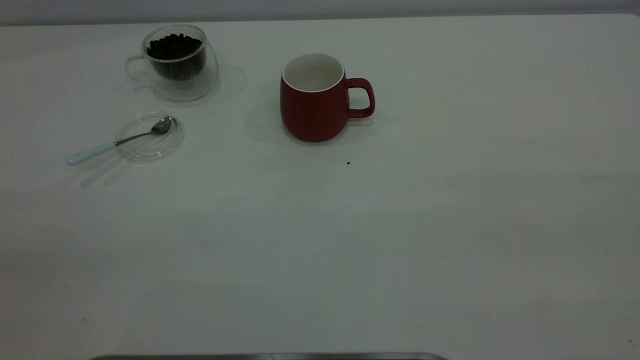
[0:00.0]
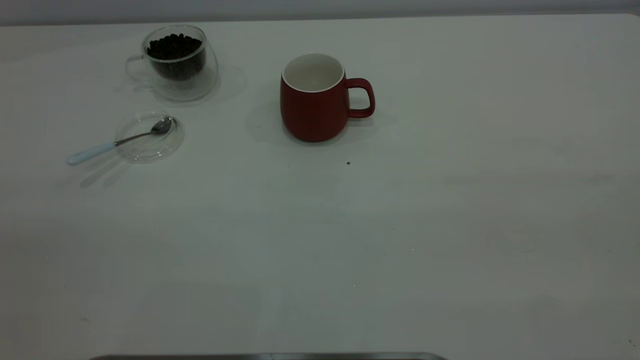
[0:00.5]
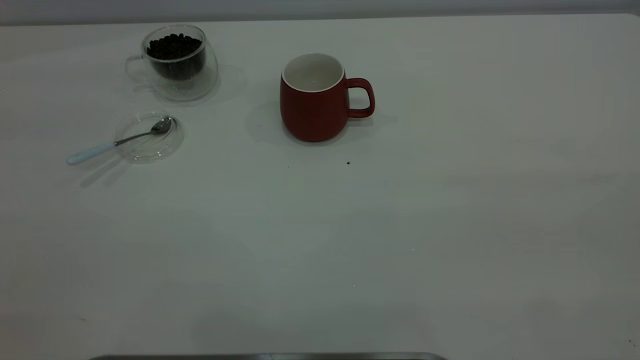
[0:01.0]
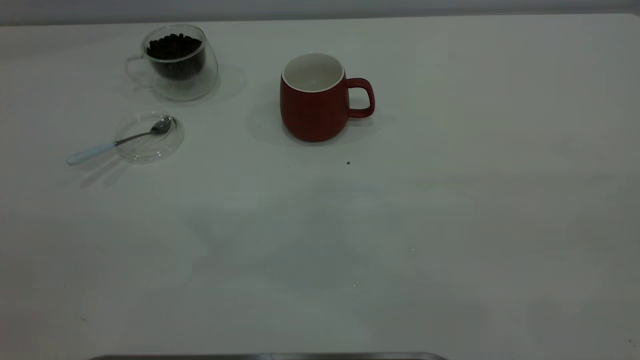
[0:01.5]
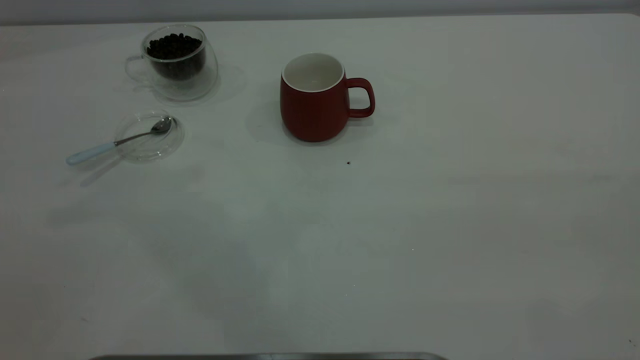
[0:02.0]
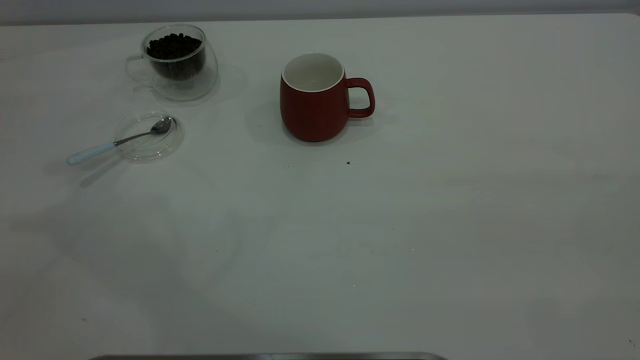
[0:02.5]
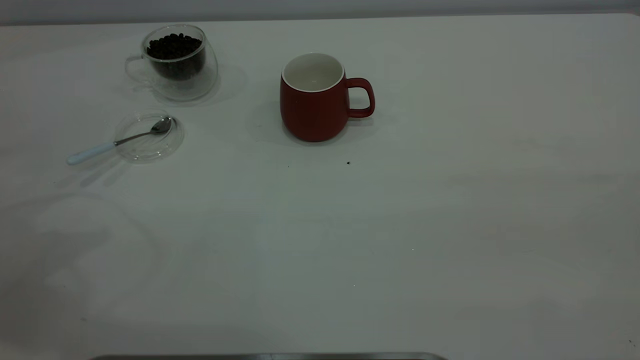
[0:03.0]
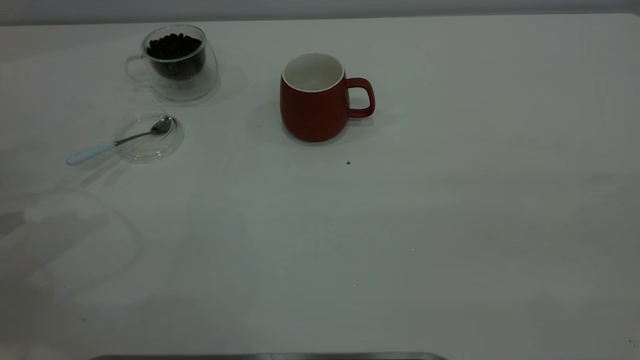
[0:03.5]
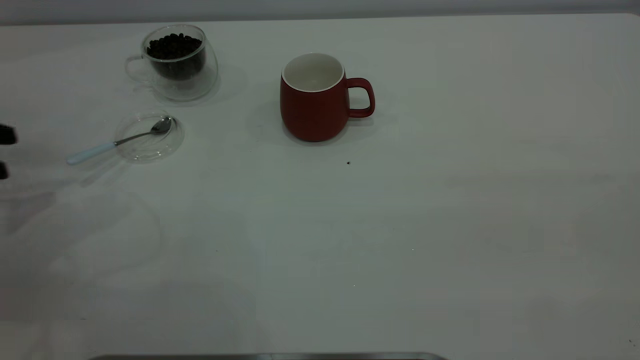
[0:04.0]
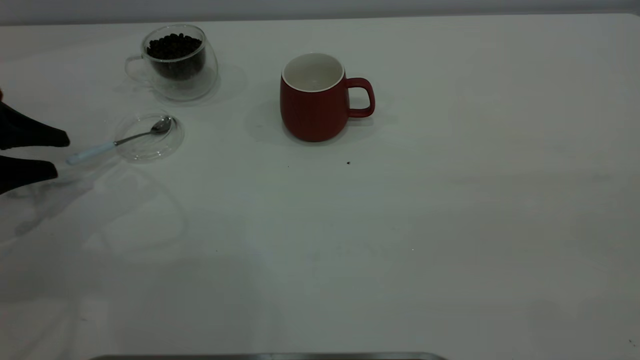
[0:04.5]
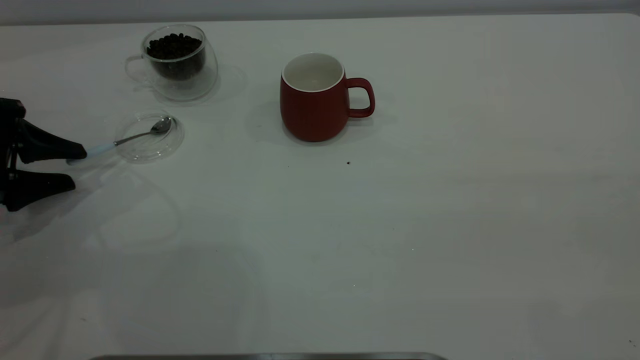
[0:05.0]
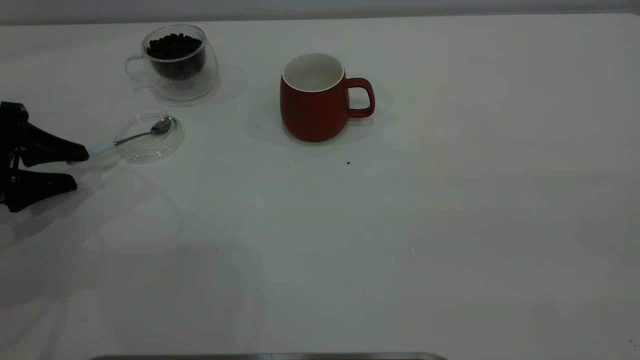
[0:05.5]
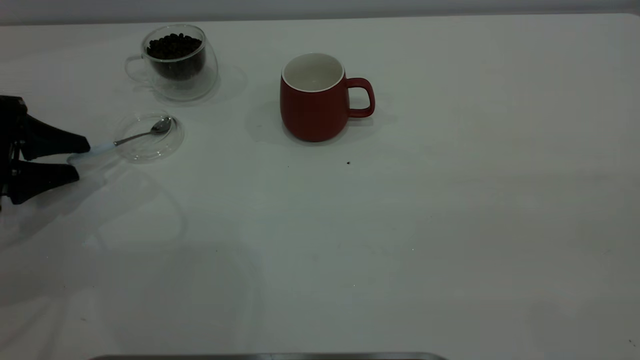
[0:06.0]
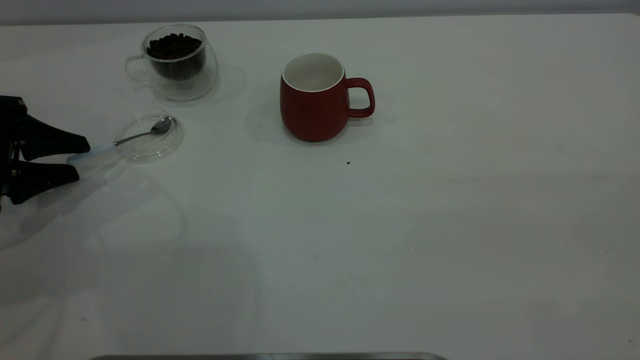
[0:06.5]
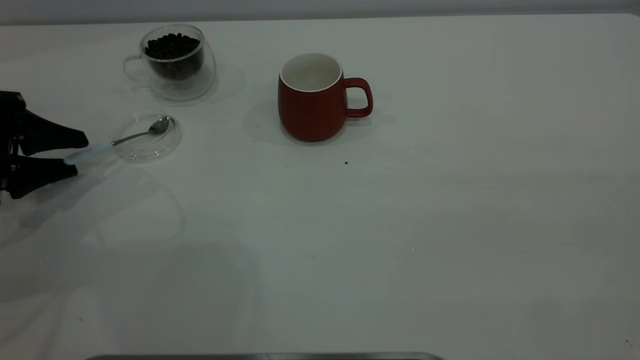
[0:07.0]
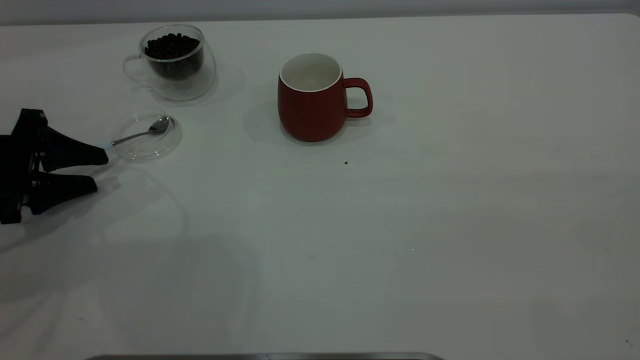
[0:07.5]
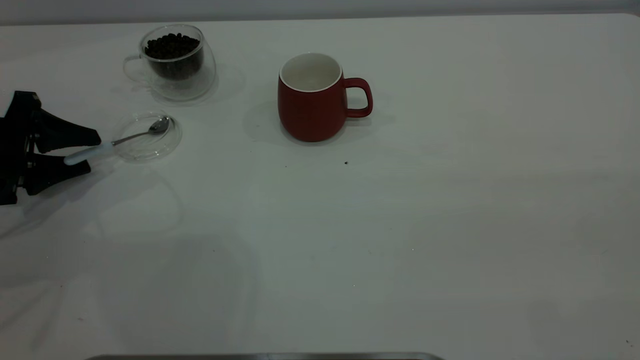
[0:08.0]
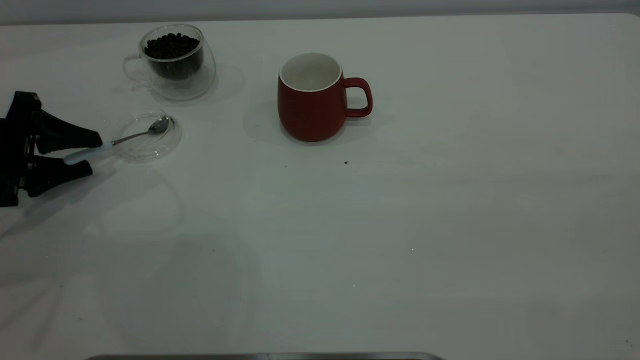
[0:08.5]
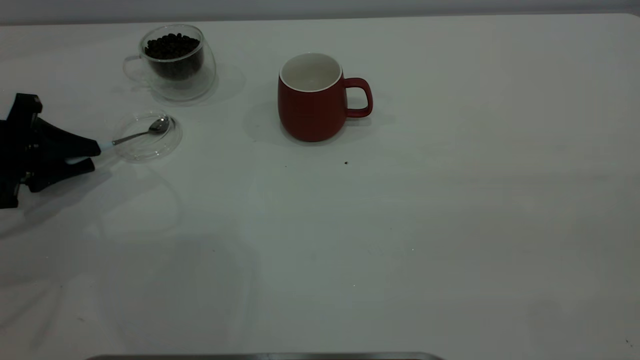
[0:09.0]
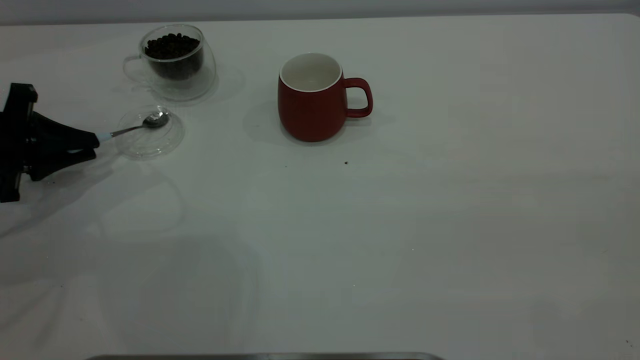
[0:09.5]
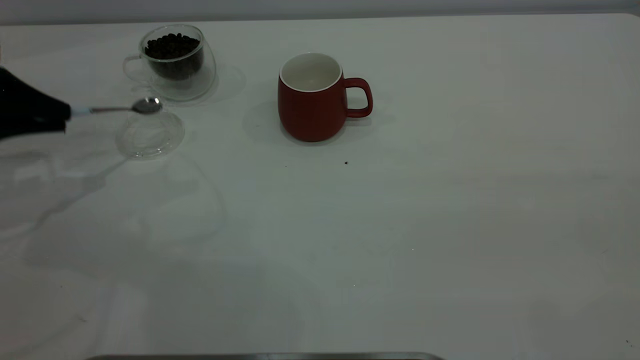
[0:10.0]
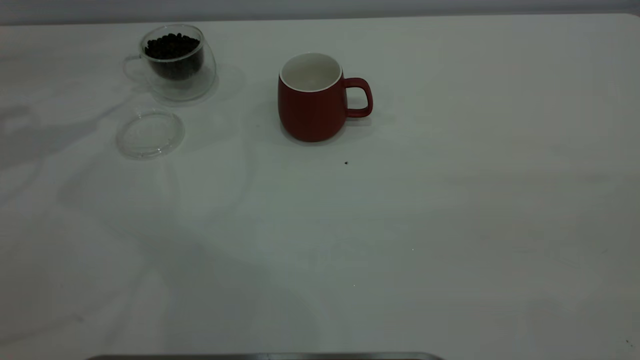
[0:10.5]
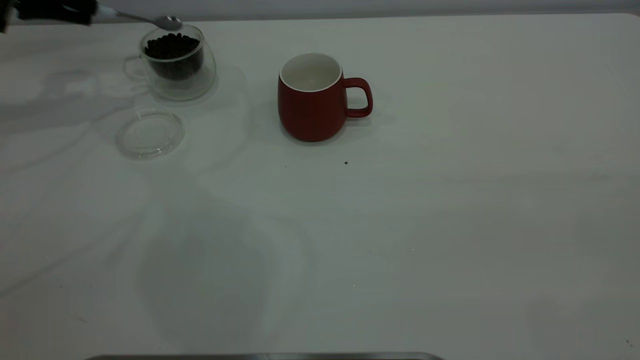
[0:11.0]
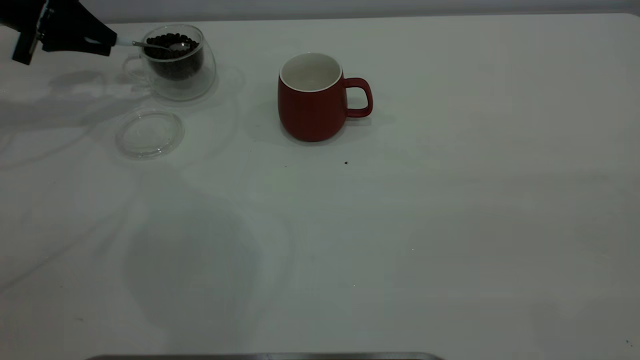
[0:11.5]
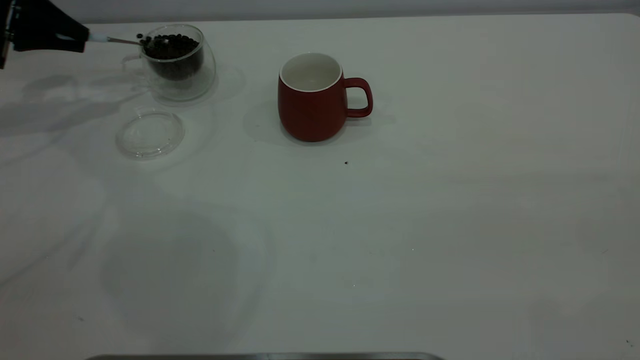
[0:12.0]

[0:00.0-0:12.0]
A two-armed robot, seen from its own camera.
Task of the whole recording: the right gripper place the red cup in the center of the table, the left gripper take the blue spoon from the cup lid and scoop out the coffee beans from the coffee cup and put them into the red cup, the left gripper put the spoon back into the cup lid.
Step, 0:00.0 to 0:09.5: Pick up the spoon.
0:04.0 to 0:06.0: The left gripper ends up some 5 cm from where it was.
0:06.0 to 0:08.0: The grippers stay close to where they were, moving slightly.
0:08.0 to 0:10.0: The left gripper heads upward, covering some 10 cm, and closes up.
0:10.0 to 0:12.0: The left gripper goes some 15 cm forward.

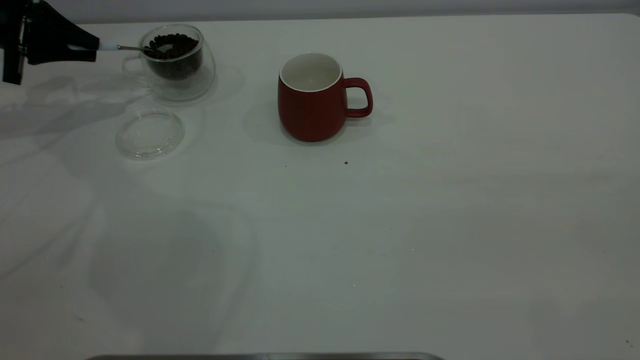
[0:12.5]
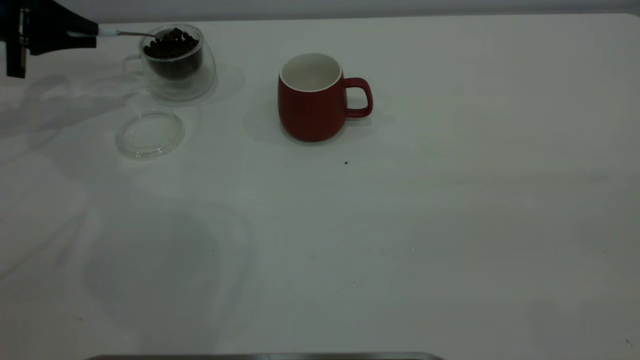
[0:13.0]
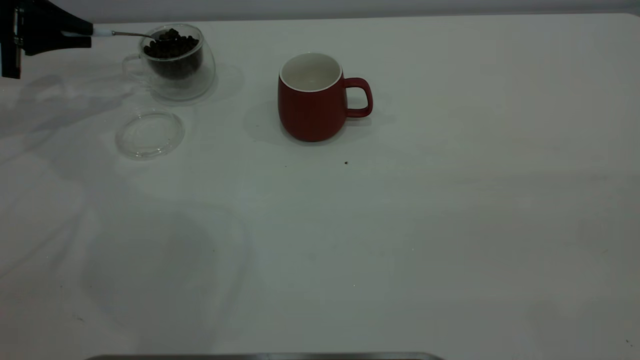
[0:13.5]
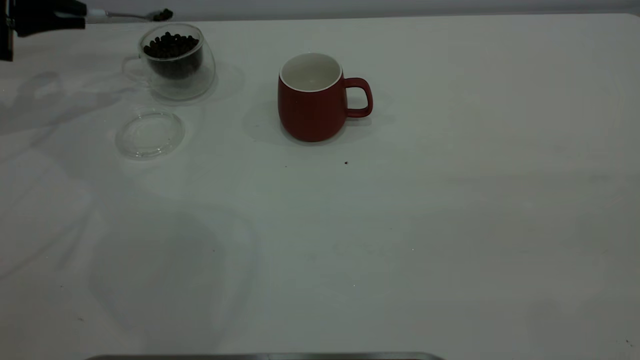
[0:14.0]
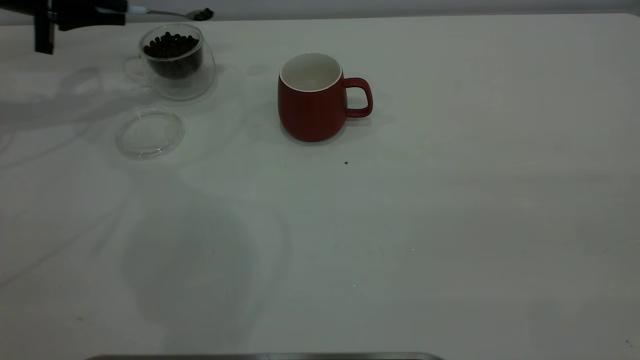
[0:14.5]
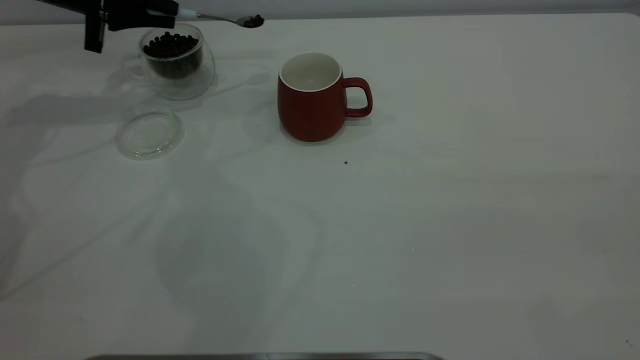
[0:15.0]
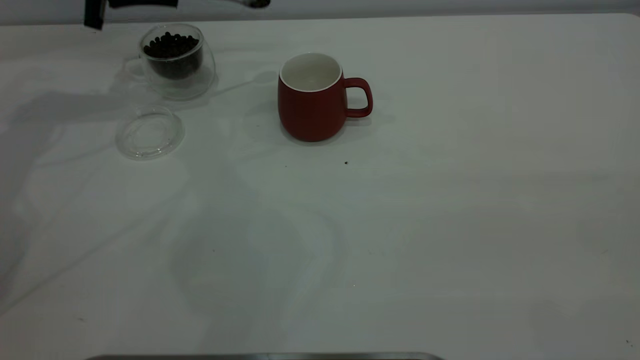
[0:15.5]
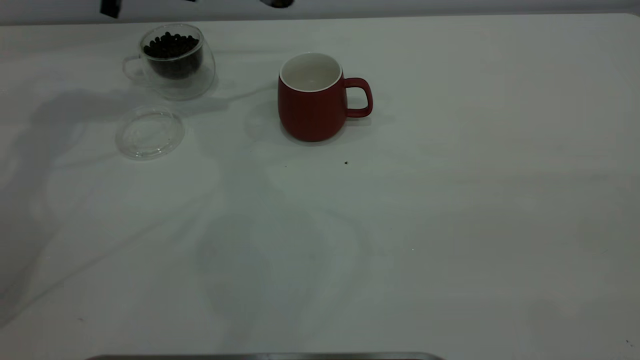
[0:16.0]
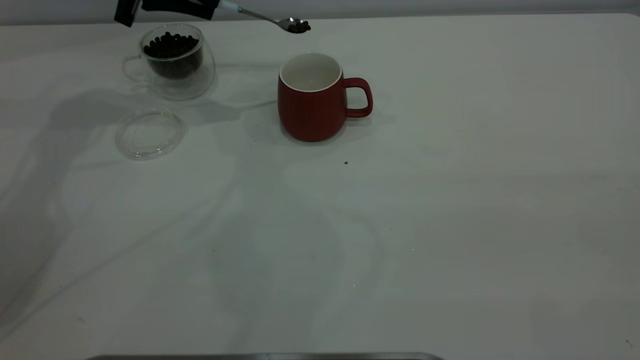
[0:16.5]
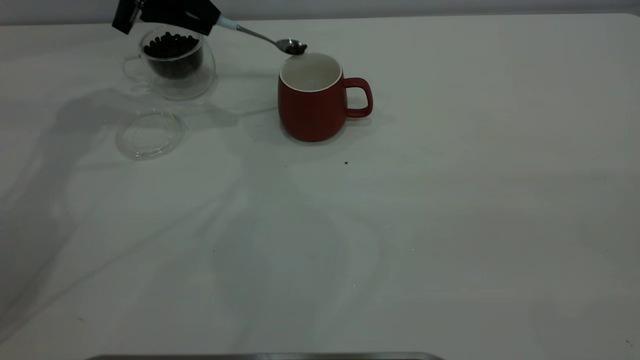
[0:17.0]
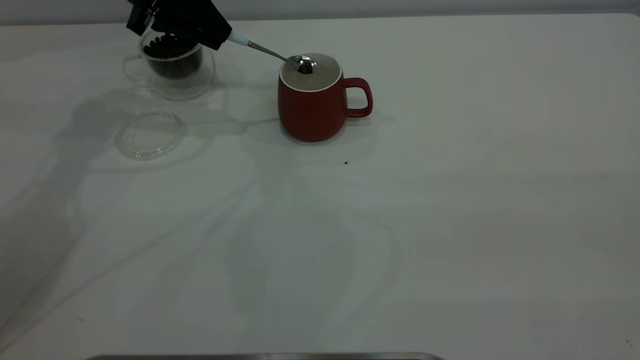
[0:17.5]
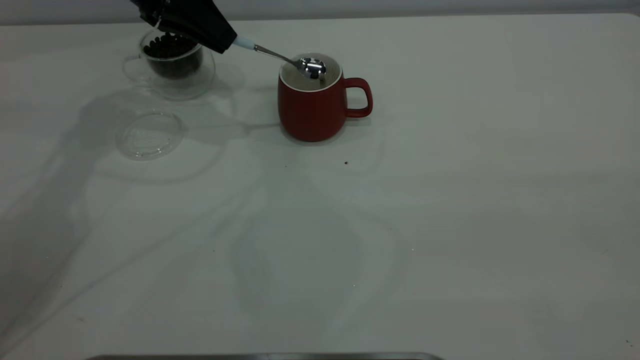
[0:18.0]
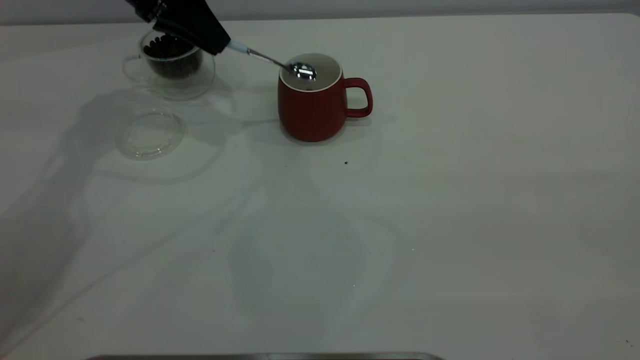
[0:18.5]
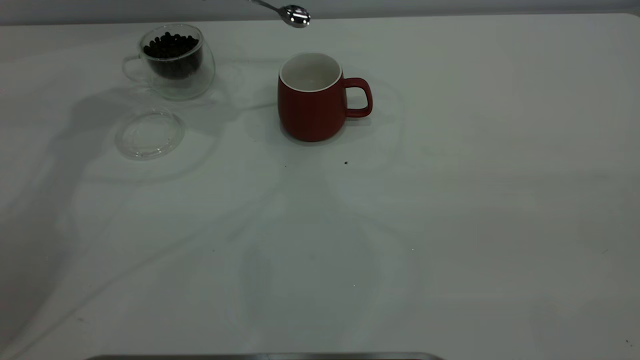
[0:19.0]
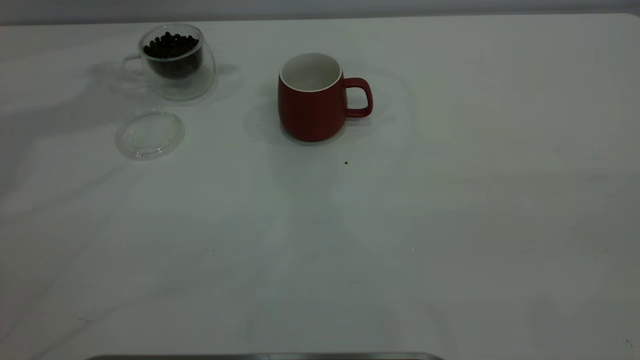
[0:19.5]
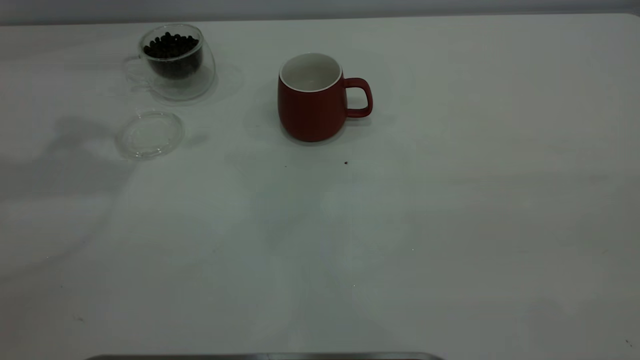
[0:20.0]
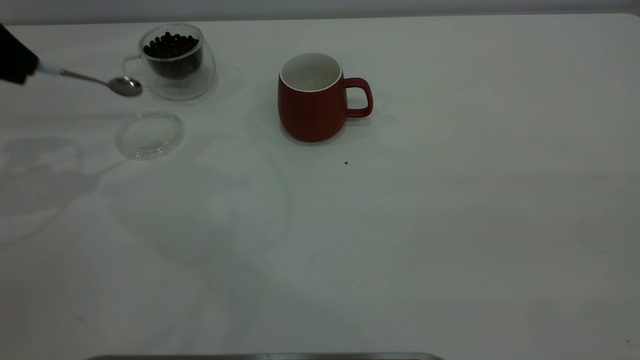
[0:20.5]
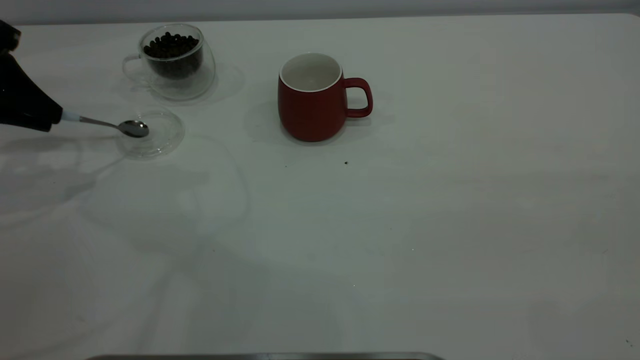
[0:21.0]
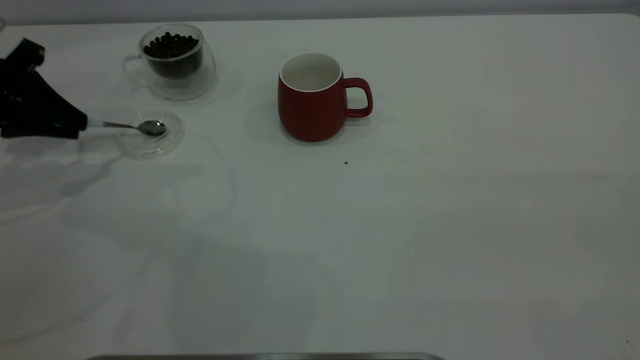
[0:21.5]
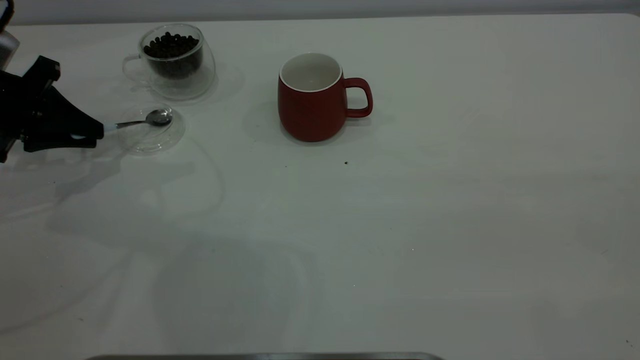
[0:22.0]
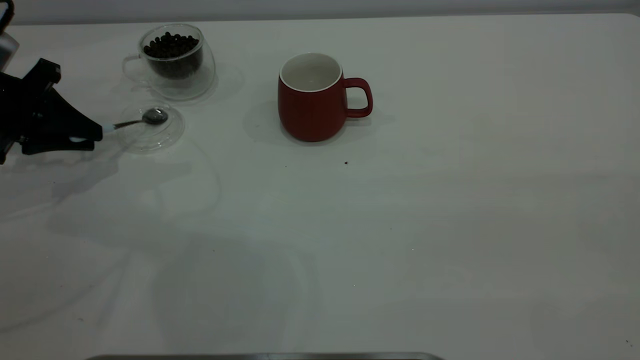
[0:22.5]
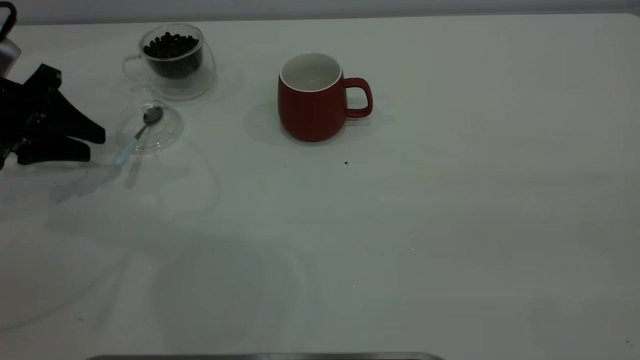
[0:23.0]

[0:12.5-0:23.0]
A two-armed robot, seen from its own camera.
Task of the whole recording: the right gripper place the red cup in the center of the table, the left gripper take the blue spoon from the cup lid and scoop out the coffee beans from the coffee cup and put them into the red cup, the left gripper put the spoon back into the cup lid.
Step, 0:12.5 to 0:18.5: Scoop a spoonful of beans into the cup.
Step, 0:19.0 to 0:23.0: Place the spoon back in its original place.
0:12.5 to 0:14.5: The left gripper shifts by approximately 5 cm.
0:14.5 to 0:16.5: The left gripper goes approximately 10 cm to the right.
0:16.5 to 0:19.0: The left gripper shifts roughly 5 cm upward.
0:19.0 to 0:21.0: The left gripper goes roughly 20 cm to the left and backward, and goes upward and returns, about 15 cm each way.
0:21.0 to 0:23.0: The left gripper shifts roughly 5 cm downward, and opens up.
